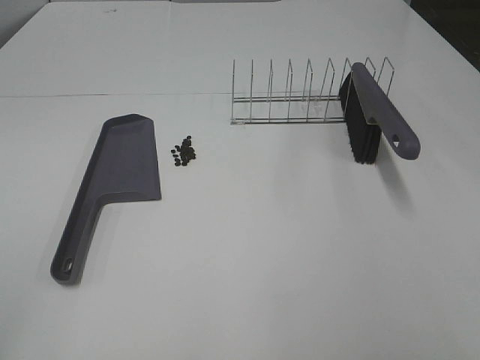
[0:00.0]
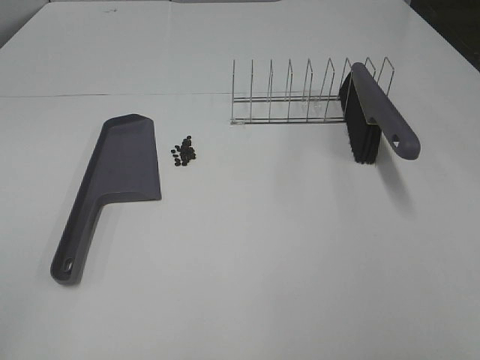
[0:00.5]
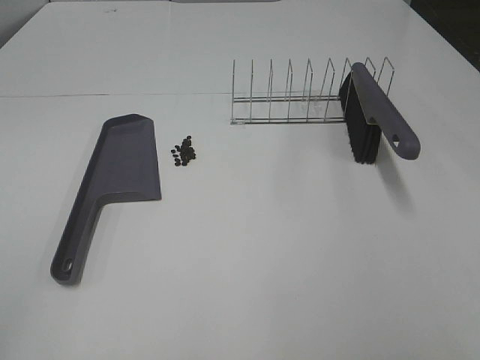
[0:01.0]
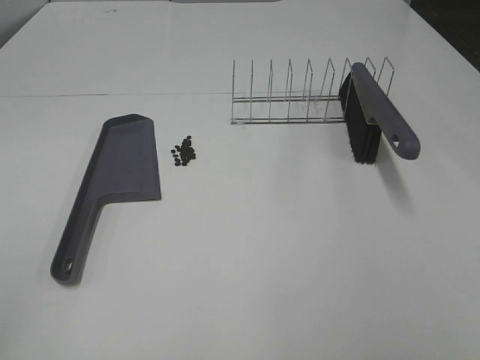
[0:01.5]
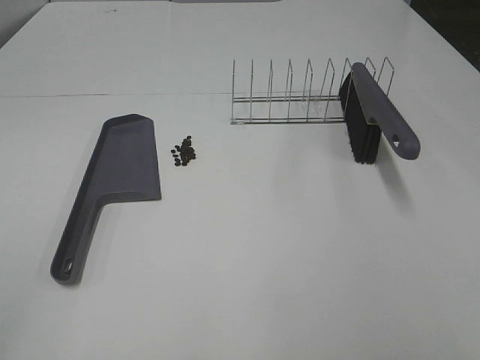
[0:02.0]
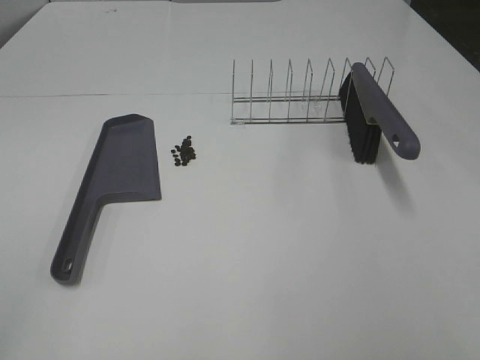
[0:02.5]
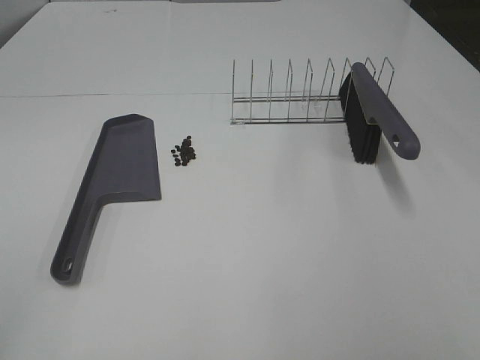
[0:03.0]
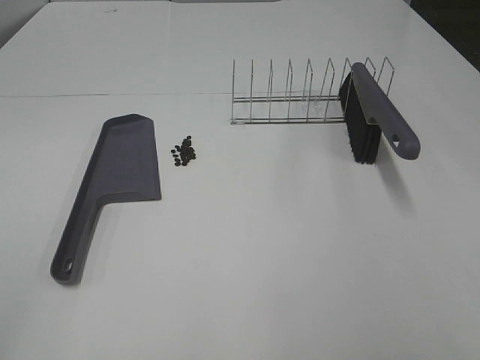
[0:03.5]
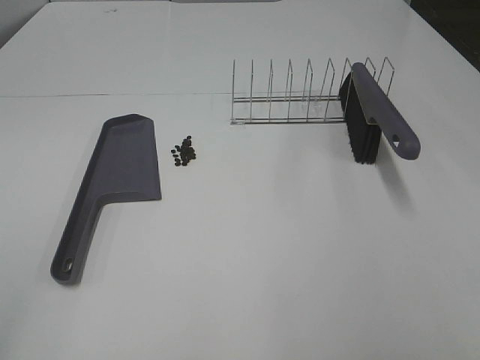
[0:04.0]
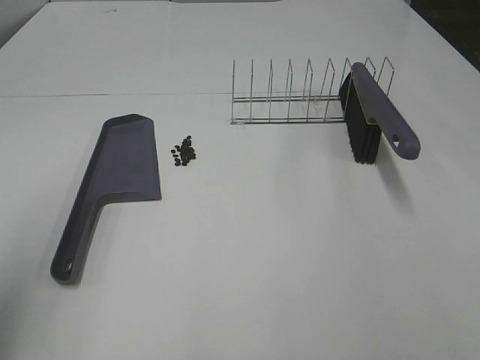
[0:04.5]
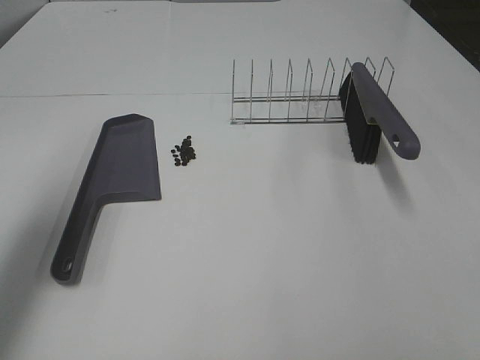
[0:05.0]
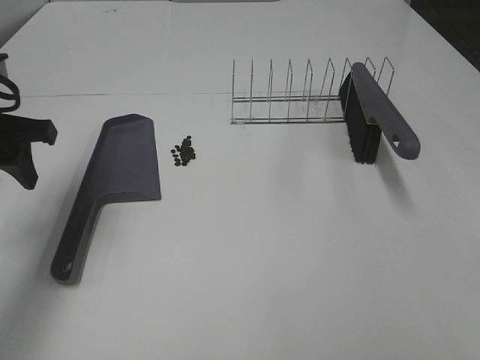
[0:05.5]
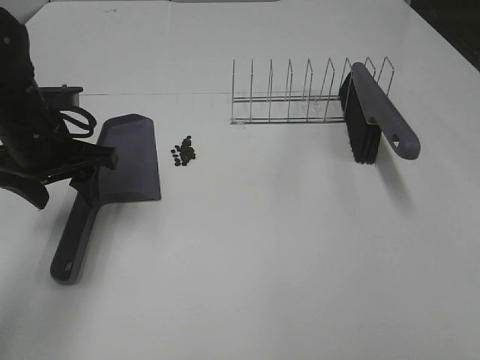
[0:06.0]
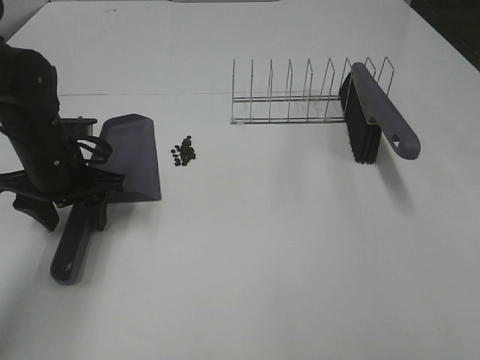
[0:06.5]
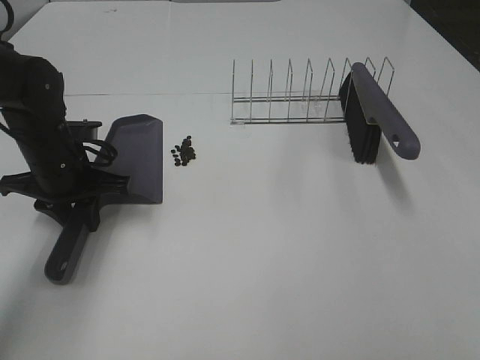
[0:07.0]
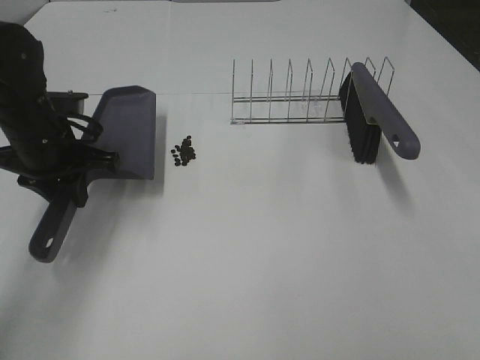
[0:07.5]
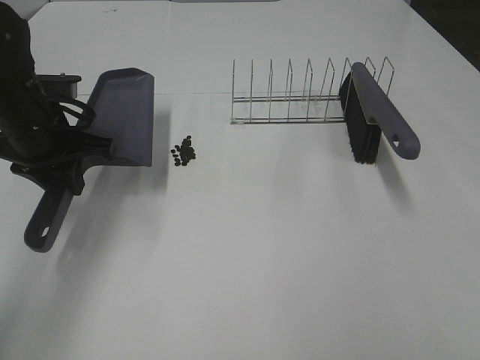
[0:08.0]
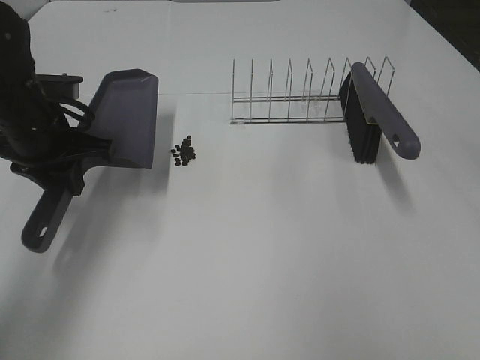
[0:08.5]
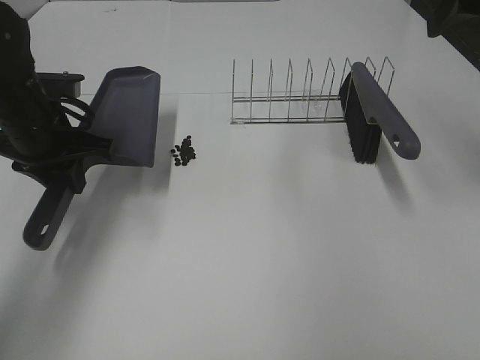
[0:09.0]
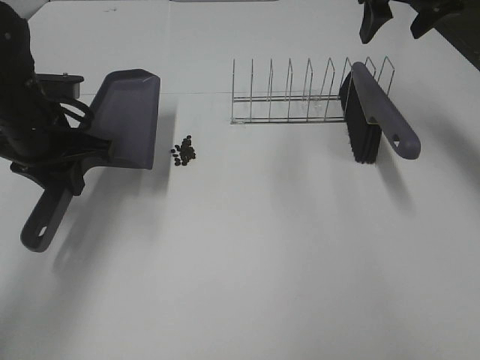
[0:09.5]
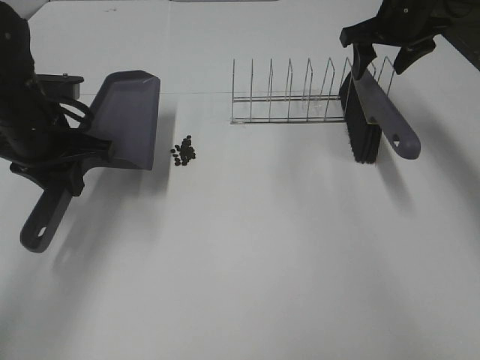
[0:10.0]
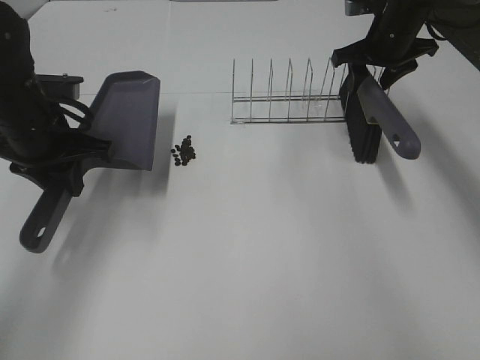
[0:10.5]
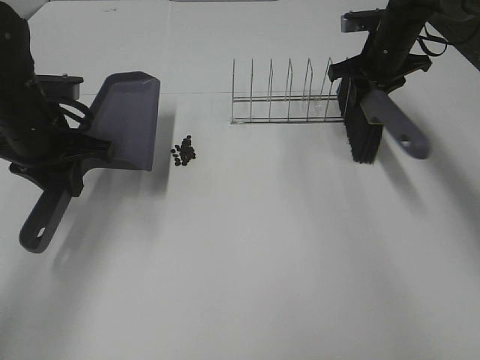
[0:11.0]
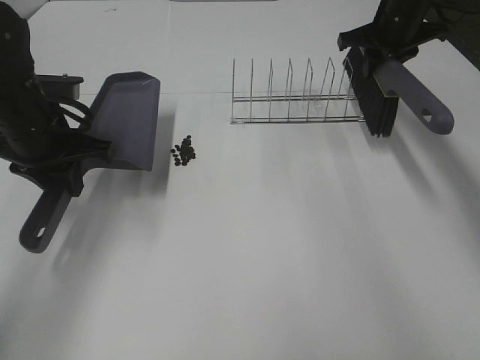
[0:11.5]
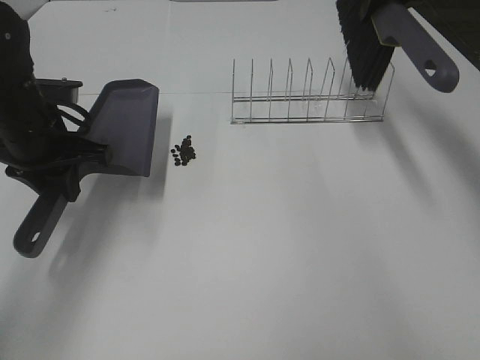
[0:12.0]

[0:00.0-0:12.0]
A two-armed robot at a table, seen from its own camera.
Task of the whole recording: Sweep Coffee Bean.
Step, 0:00.0 to 0:07.0: Left hand: grab the dustpan.
Step, 0:08.0 to 0:11.0: Right hand:grab the broom.
0:00.0 to 0:04.0: Both grippers stay about where they are.
0:04.0 to 0:06.0: The left gripper heads forward, covering about 35 cm, and opens its fingers.
0:06.0 to 0:08.0: The left gripper closes.
0:08.0 to 0:10.0: The right gripper moves forward, roughly 50 cm.
0:10.0 to 0:12.0: The right gripper is displaced upward by about 10 cm, and closes.

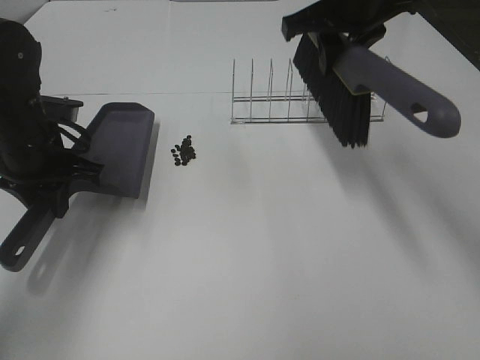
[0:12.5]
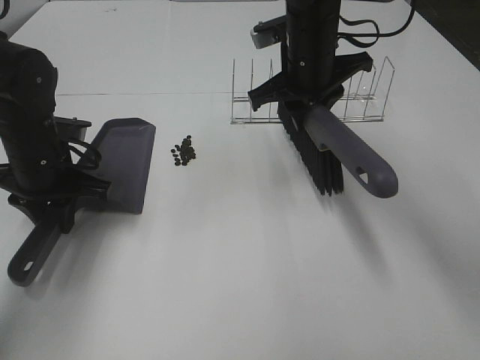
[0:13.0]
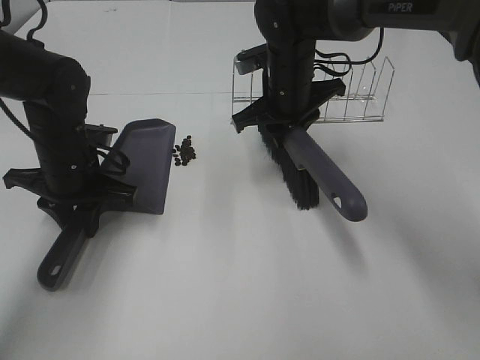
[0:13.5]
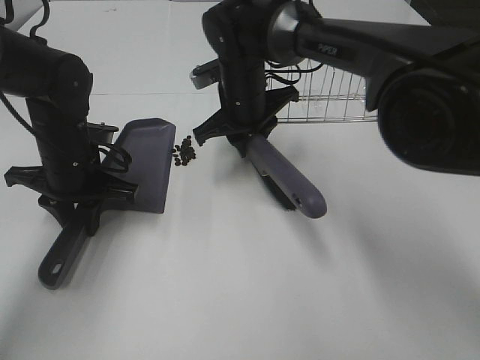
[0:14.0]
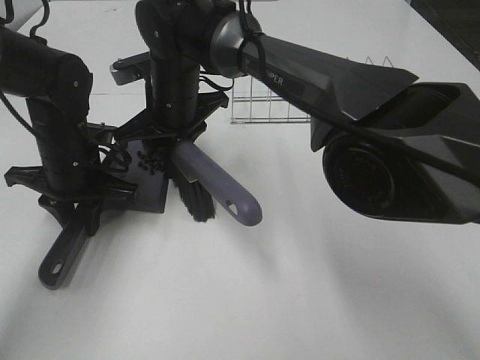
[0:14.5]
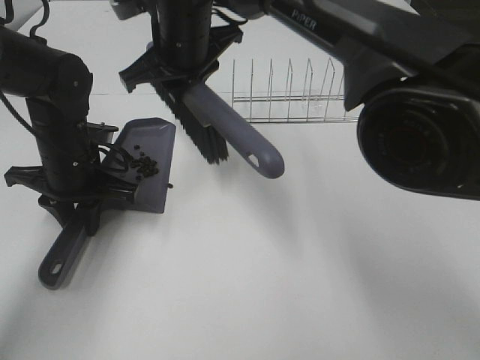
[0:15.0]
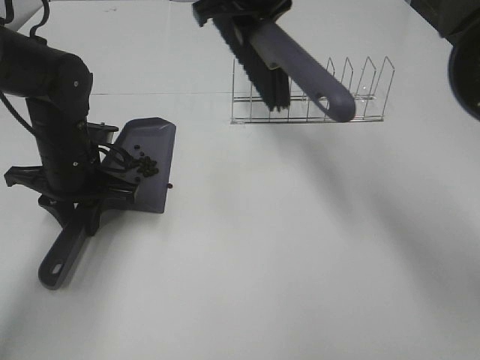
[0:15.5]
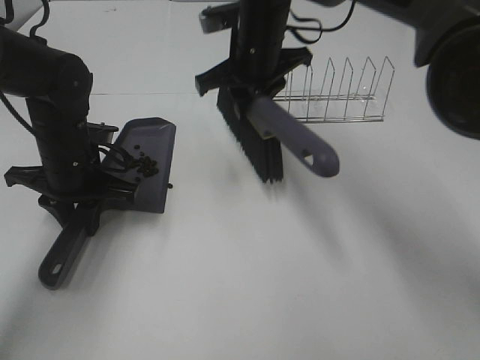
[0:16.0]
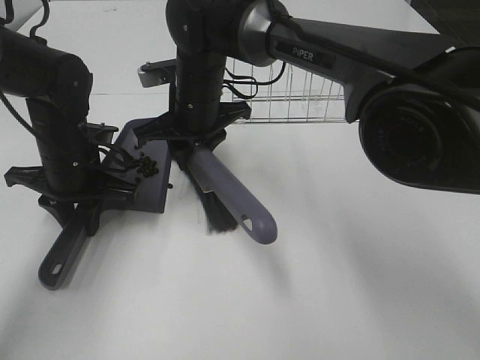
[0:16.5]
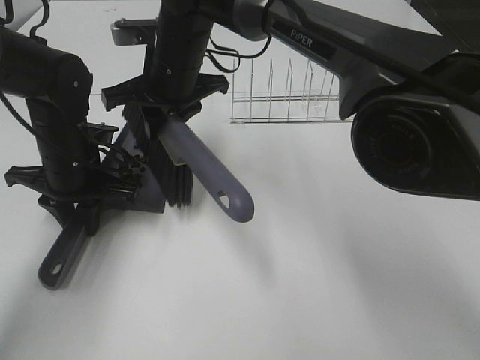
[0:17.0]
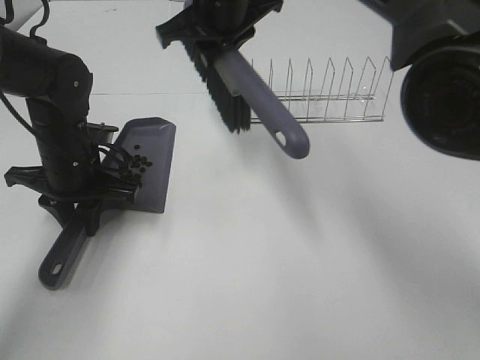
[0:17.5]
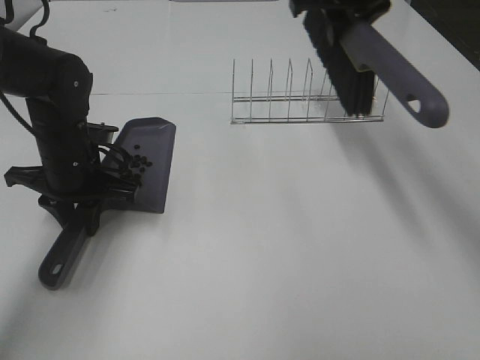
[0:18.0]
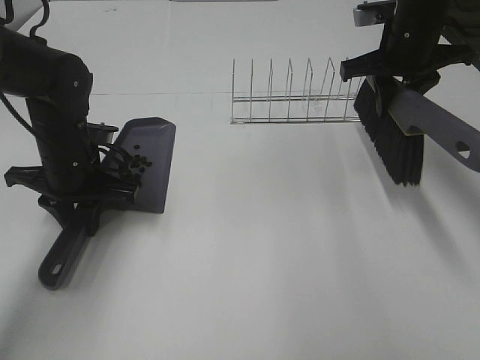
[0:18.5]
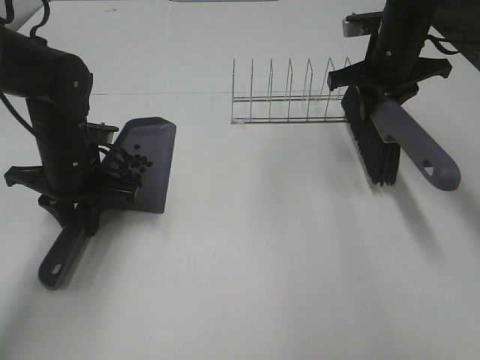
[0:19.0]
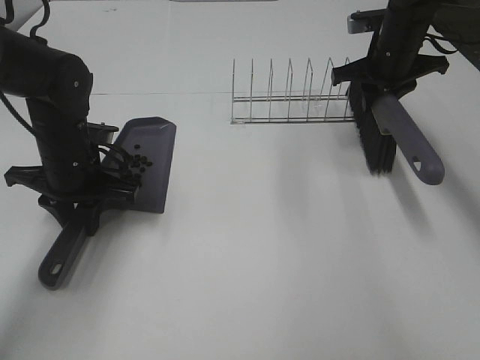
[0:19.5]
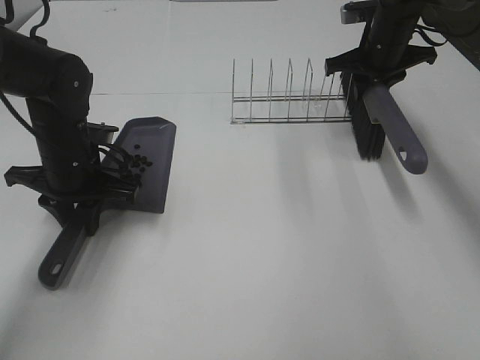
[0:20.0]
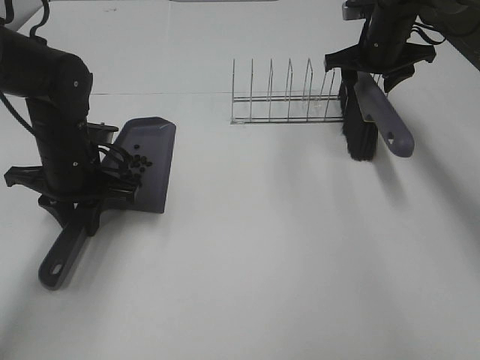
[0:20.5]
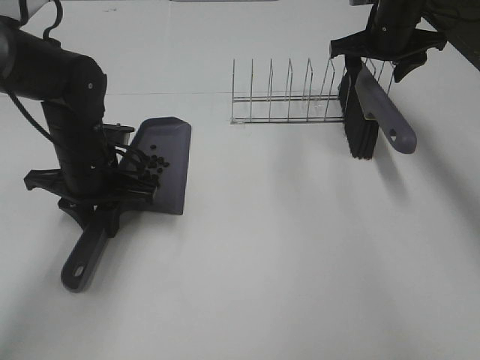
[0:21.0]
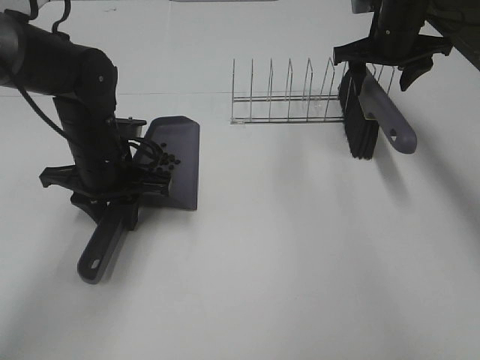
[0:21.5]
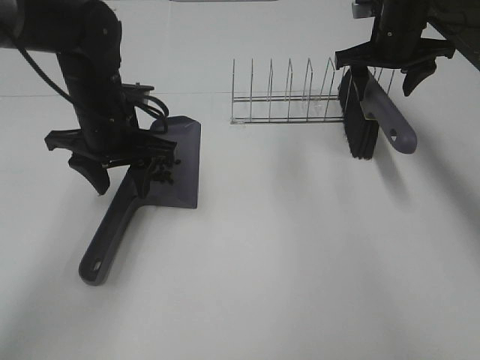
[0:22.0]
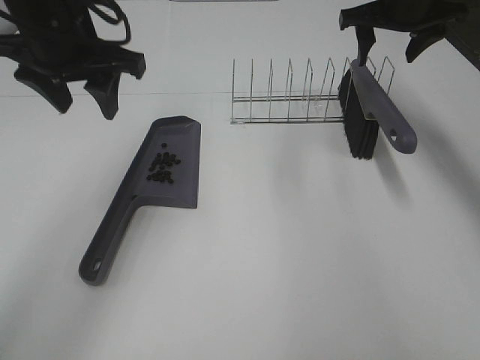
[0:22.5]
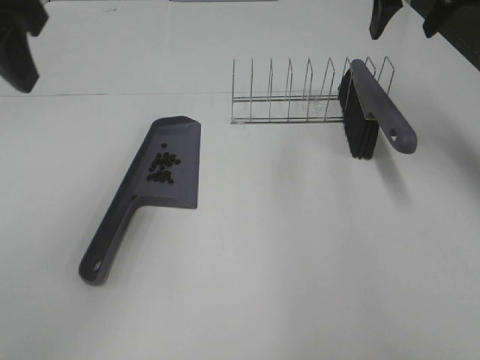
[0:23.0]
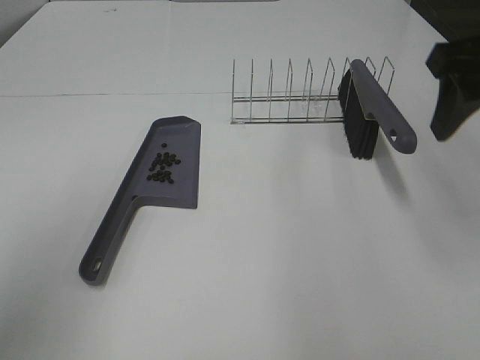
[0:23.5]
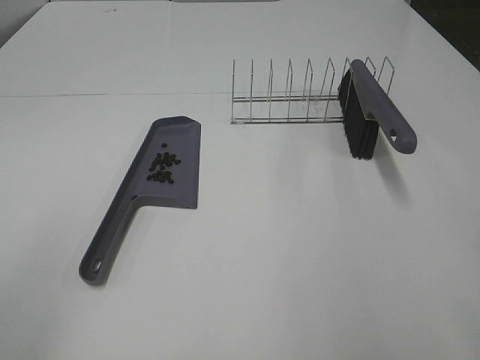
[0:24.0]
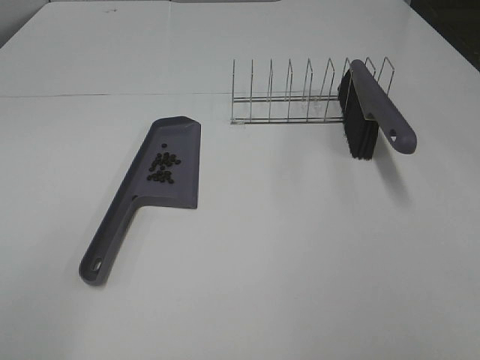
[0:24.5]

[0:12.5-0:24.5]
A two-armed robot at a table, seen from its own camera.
Task of the whole recording: Sweep Coffee Bean.
Step, 0:12.5 to 0:17.0: Right hand:sweep the coffee beans into the dustpan.
Step, 0:17.5 to 0:20.5: Right hand:place the broom on the rack.
Step, 0:21.0 to 0:21.5: Left hand:place the dustpan on the table.
0:12.5 to 0:14.5: The left gripper changes place by approximately 5 cm, while the right gripper goes some 25 cm to the left and downward.
0:14.5 to 0:16.5: The right gripper reaches roughly 15 cm upward, then returns.
0:16.5 to 0:18.5: The right gripper is displaced to the right by approximately 25 cm.
0:18.5 to 0:20.5: The right gripper moves forward, approximately 10 cm, and opens its fingers.
0:20.5 to 0:22.5: The left gripper goes some 15 cm upward, and opens its fingers; the right gripper moves upward, roughly 10 cm.
0:22.5 to 0:24.5: The left gripper shifts approximately 35 cm backward and to the left. The right gripper travels backward by about 50 cm.

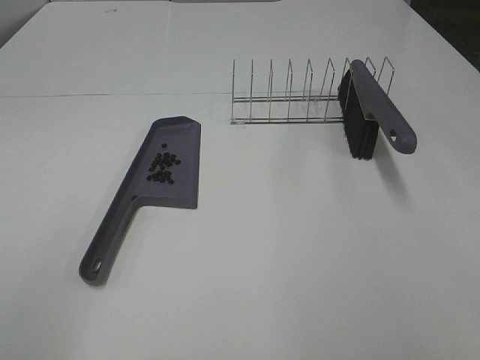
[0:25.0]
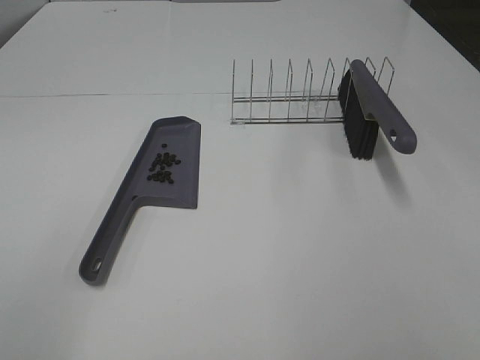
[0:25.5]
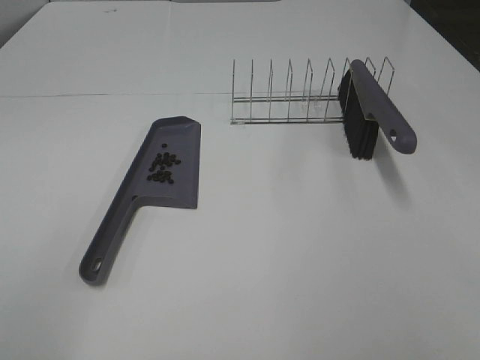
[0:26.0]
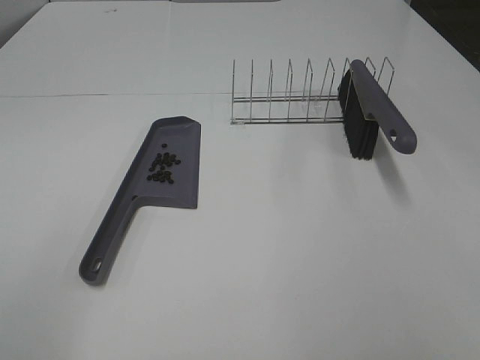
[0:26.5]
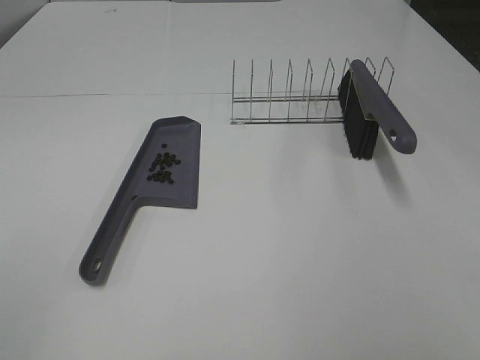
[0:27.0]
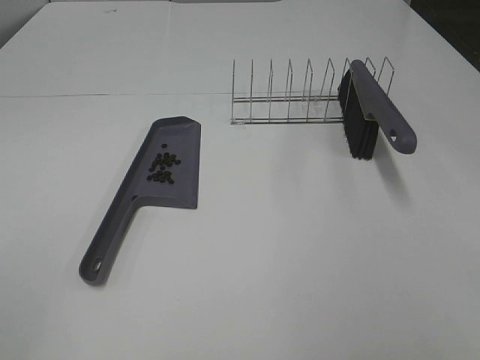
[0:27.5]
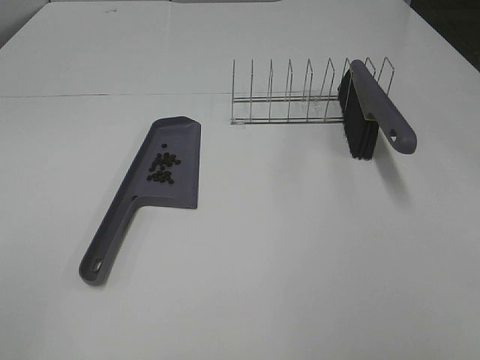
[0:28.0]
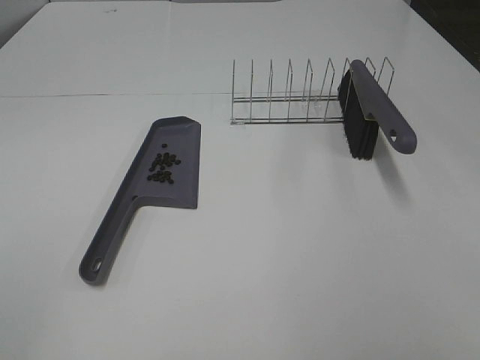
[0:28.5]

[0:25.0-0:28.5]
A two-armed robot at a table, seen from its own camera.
Task of the whole recording: Sweep Coffee Bean.
0:27.0 to 0:28.5: Both grippers stay about where they are.
